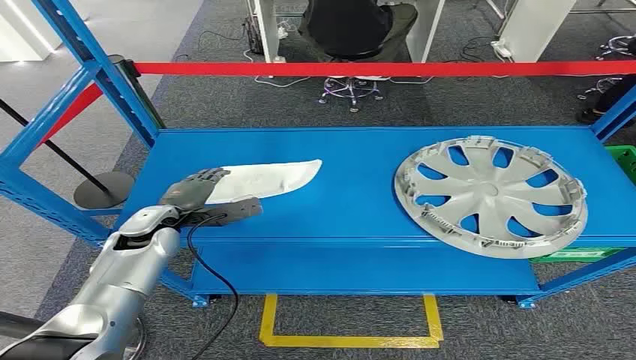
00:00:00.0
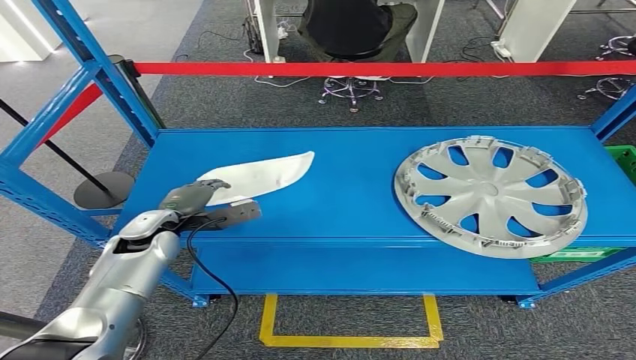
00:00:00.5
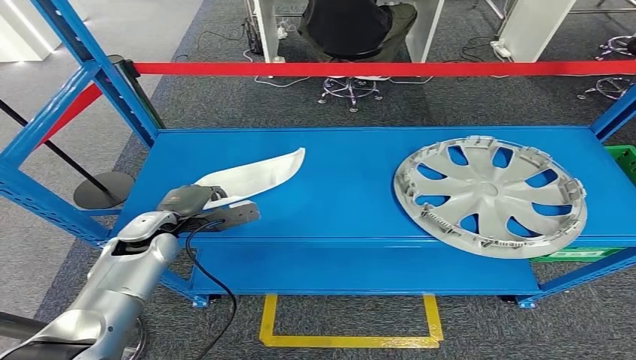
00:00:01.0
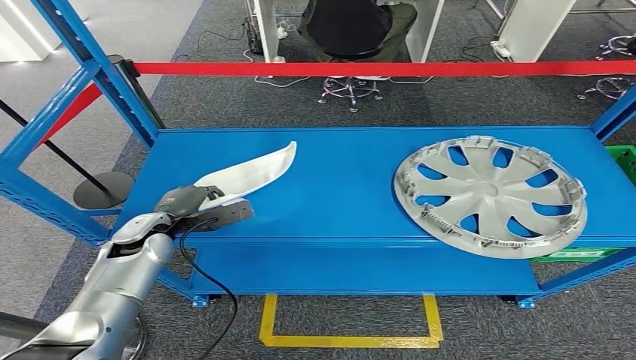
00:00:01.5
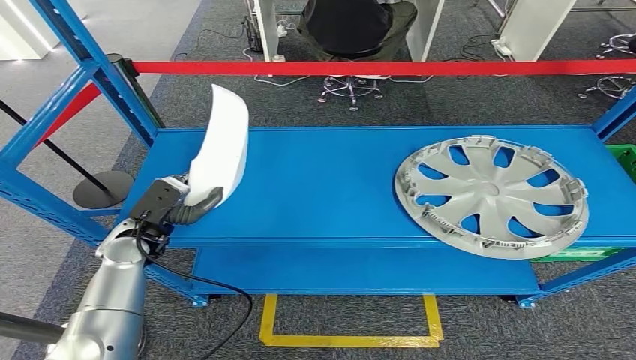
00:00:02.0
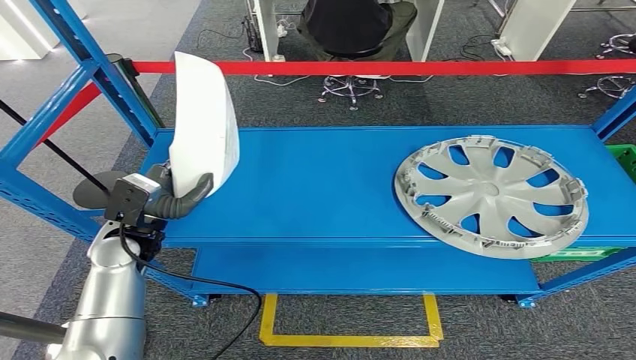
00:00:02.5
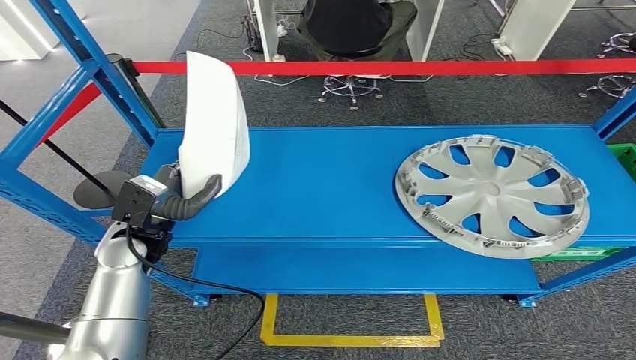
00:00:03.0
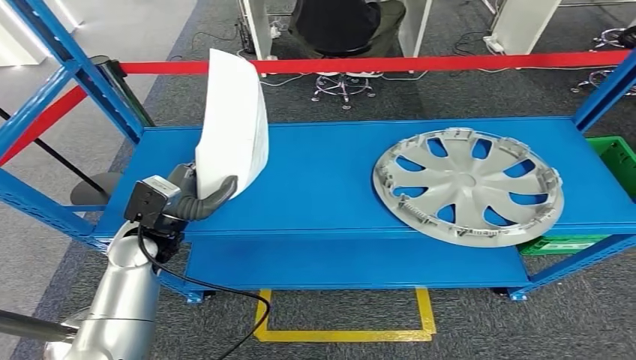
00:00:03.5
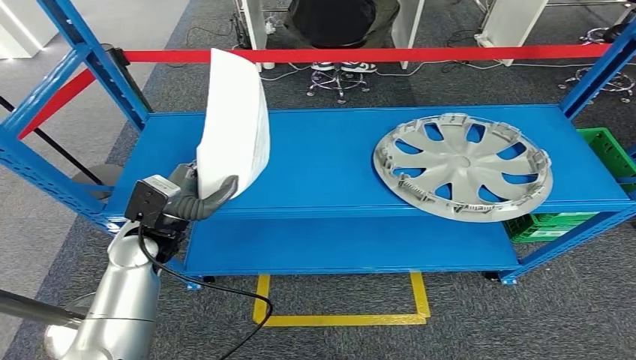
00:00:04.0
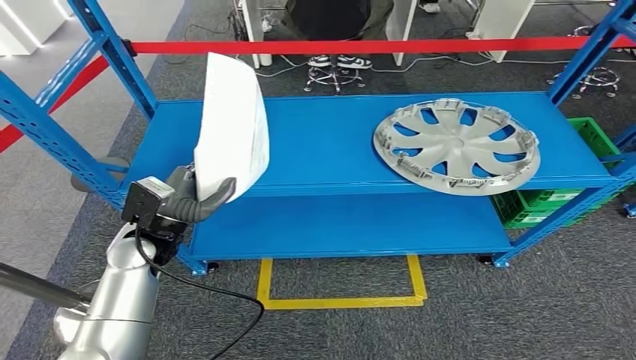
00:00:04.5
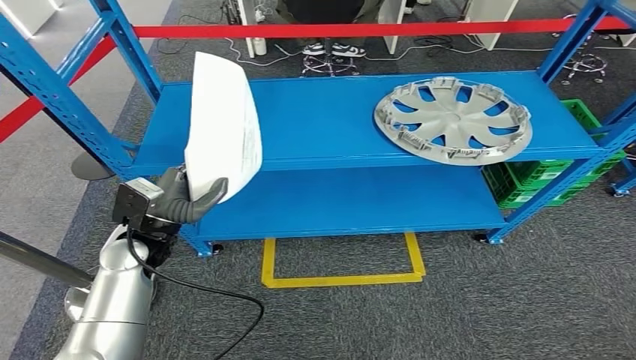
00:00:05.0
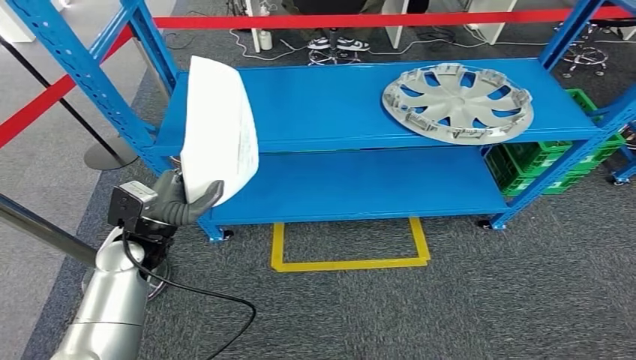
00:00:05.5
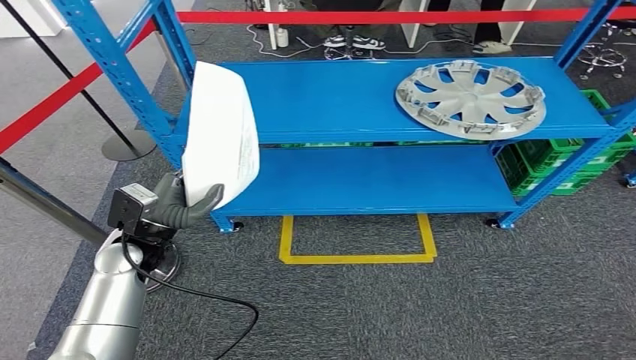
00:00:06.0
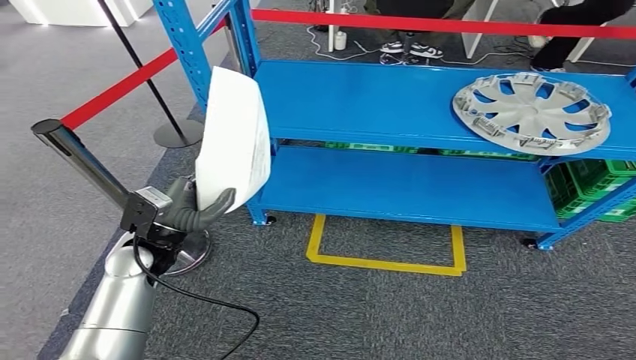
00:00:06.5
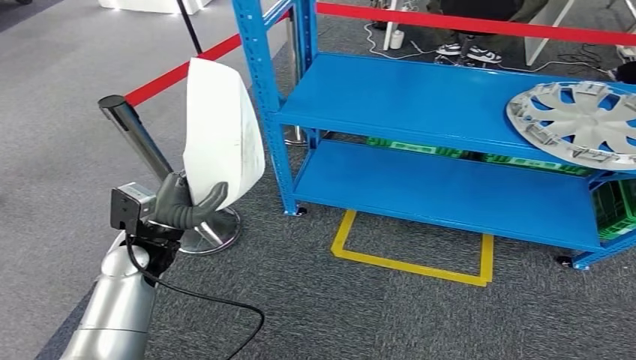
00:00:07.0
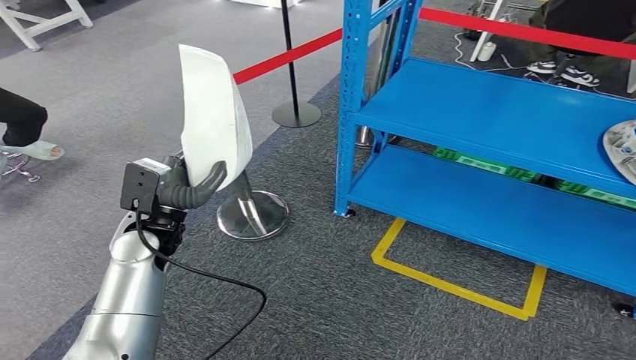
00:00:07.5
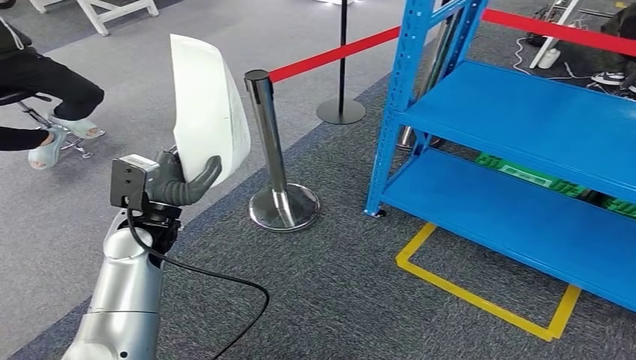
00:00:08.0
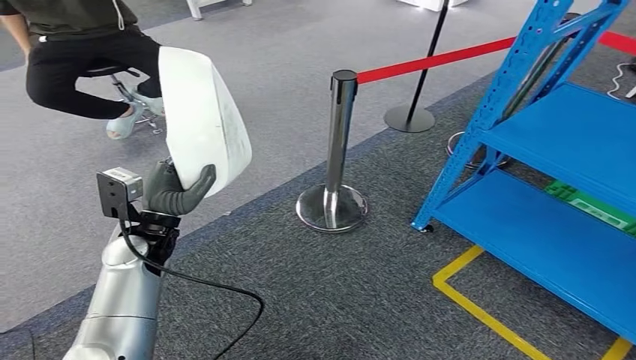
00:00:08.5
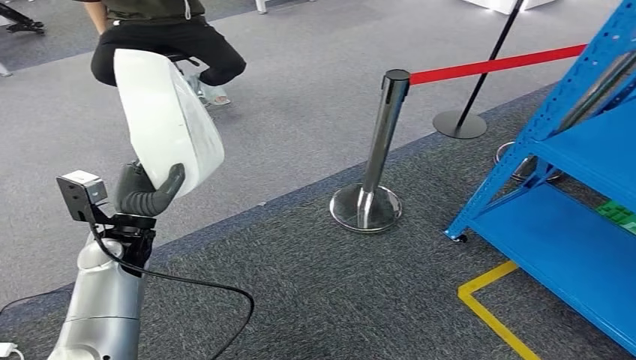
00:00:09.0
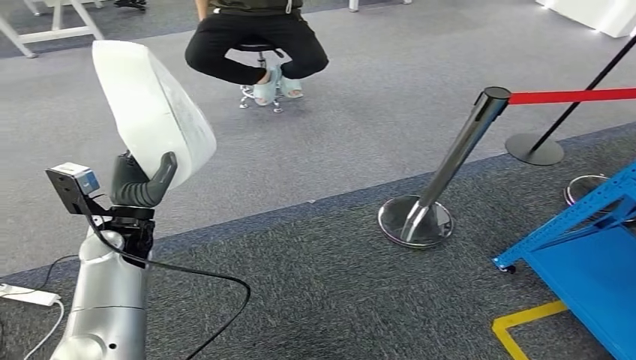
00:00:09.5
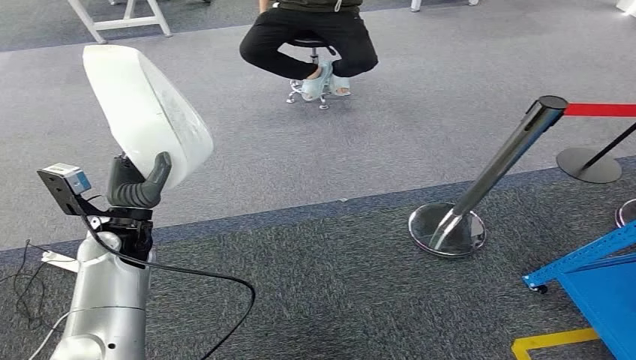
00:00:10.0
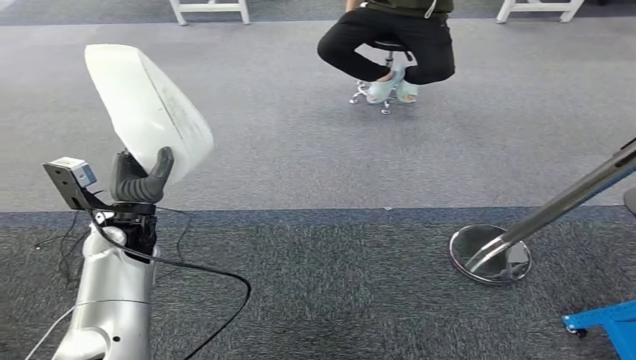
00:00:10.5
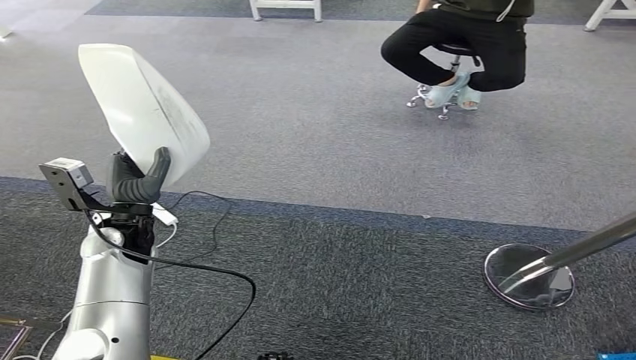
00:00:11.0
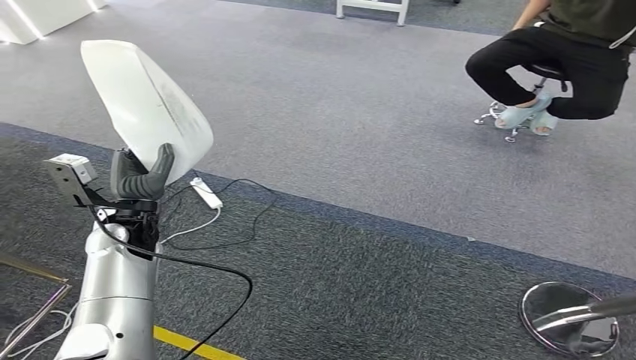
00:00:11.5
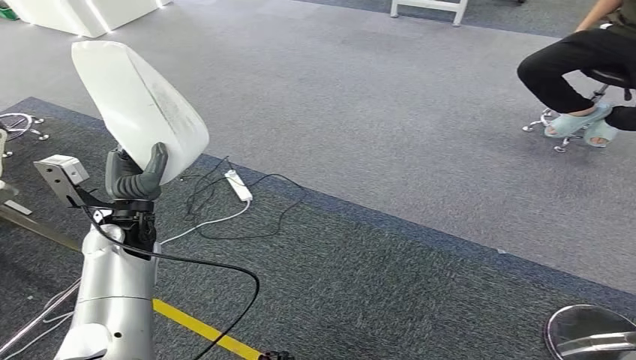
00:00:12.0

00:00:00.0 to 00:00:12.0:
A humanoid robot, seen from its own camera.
Step, 00:00:00.0 to 00:00:04.0: Pick up the small component from the shelf.

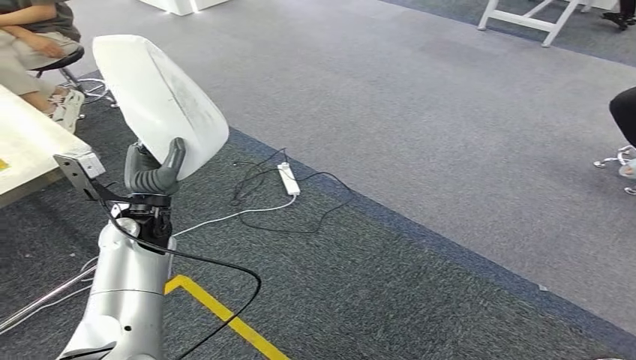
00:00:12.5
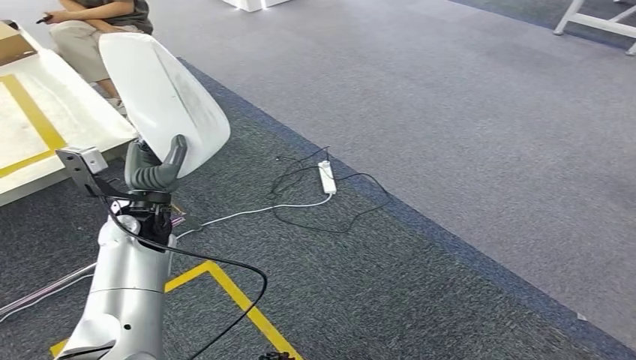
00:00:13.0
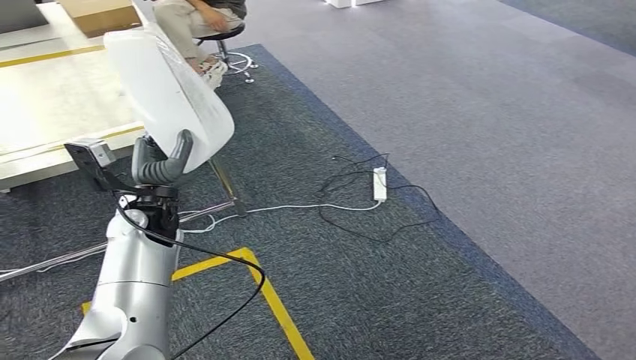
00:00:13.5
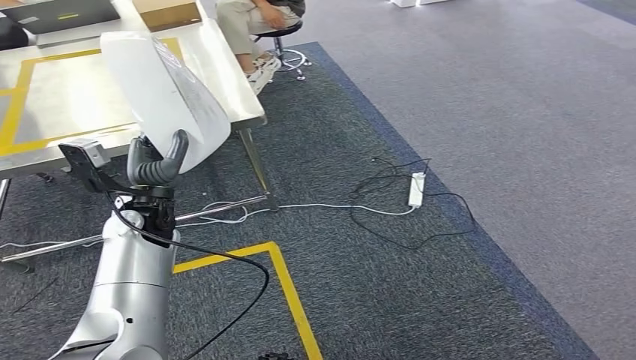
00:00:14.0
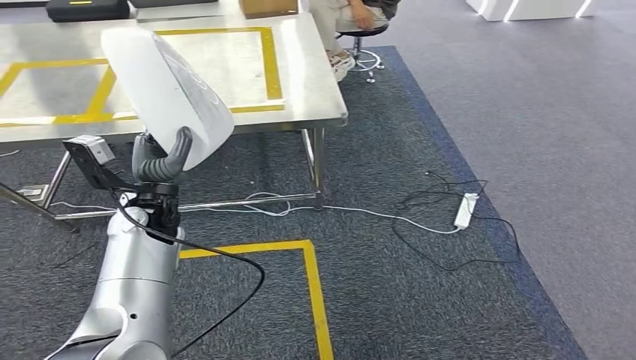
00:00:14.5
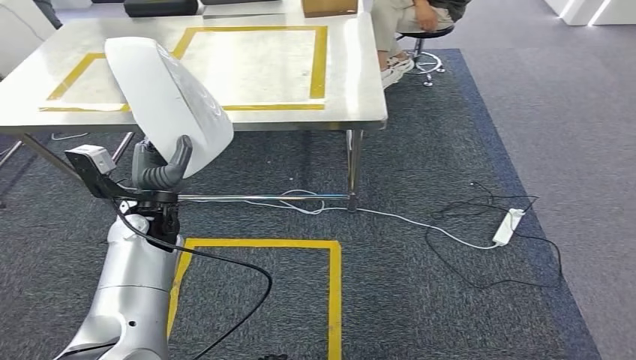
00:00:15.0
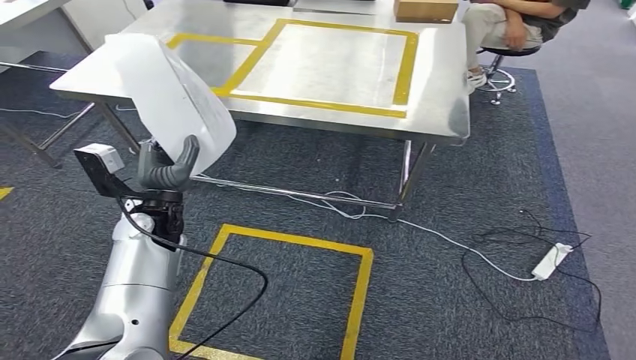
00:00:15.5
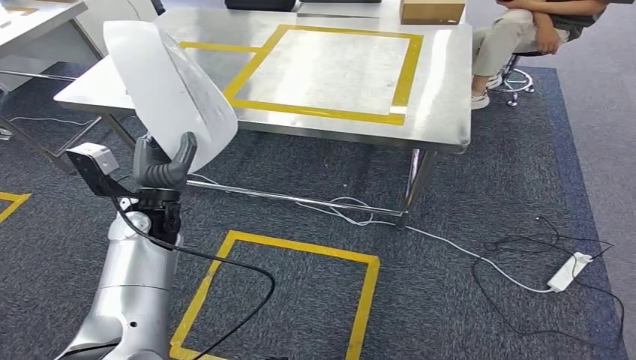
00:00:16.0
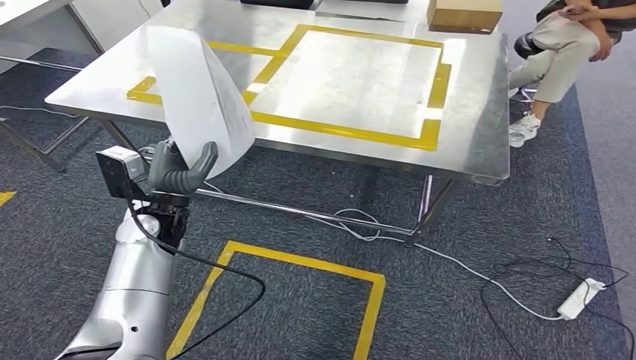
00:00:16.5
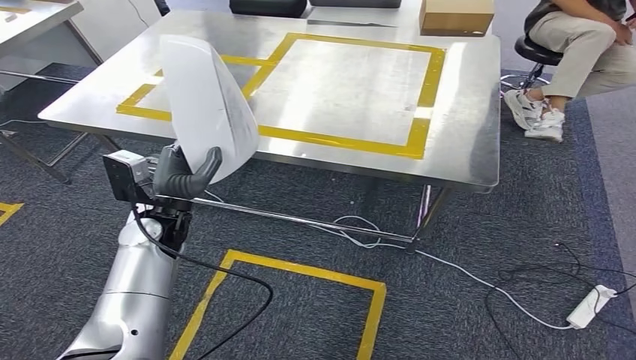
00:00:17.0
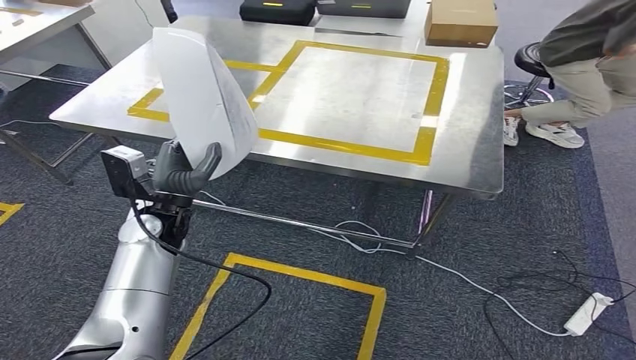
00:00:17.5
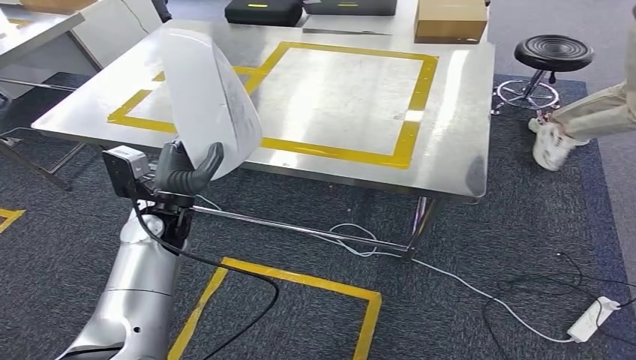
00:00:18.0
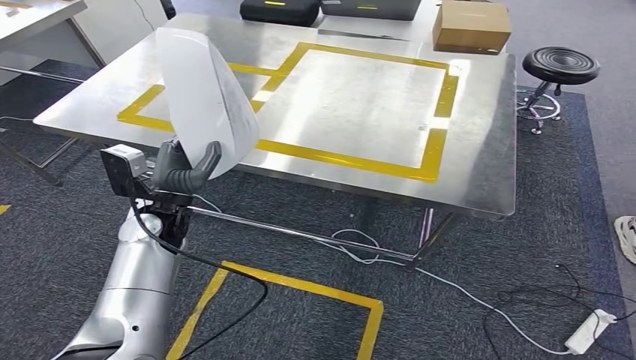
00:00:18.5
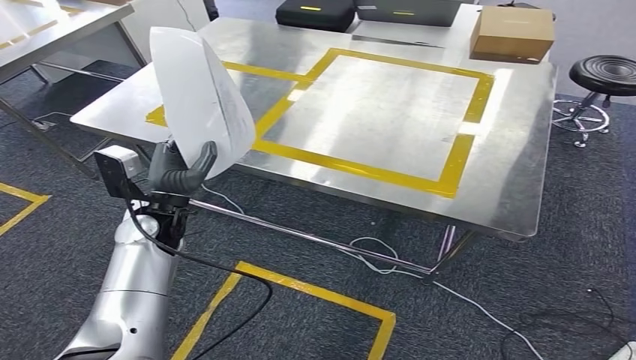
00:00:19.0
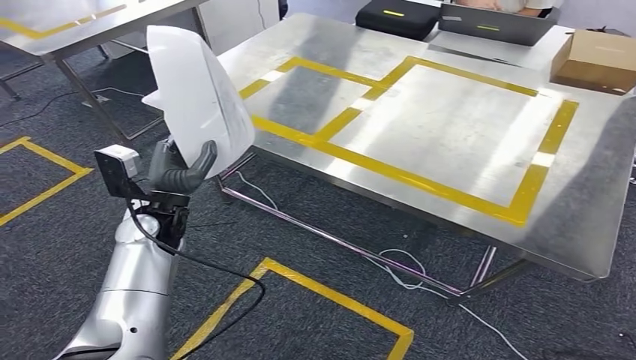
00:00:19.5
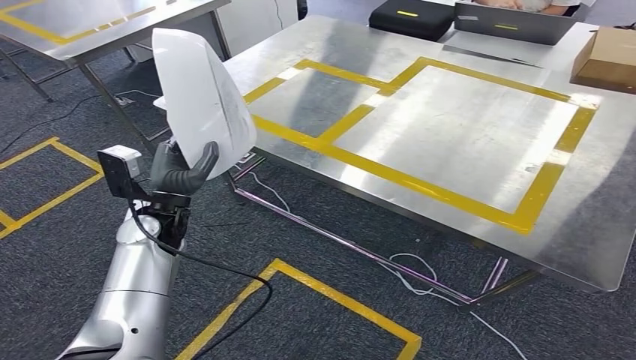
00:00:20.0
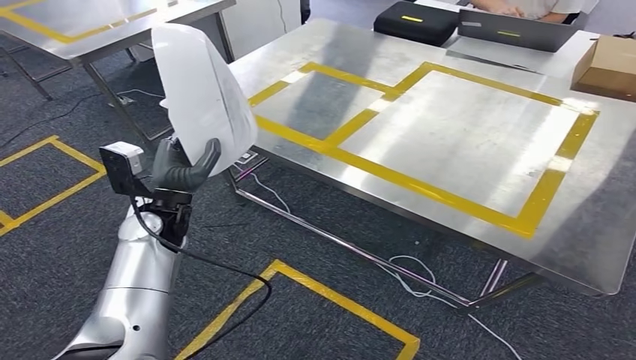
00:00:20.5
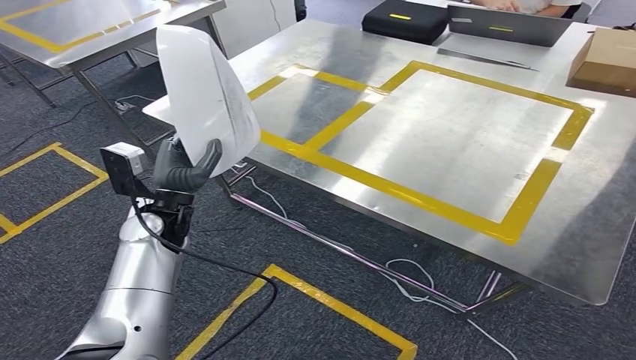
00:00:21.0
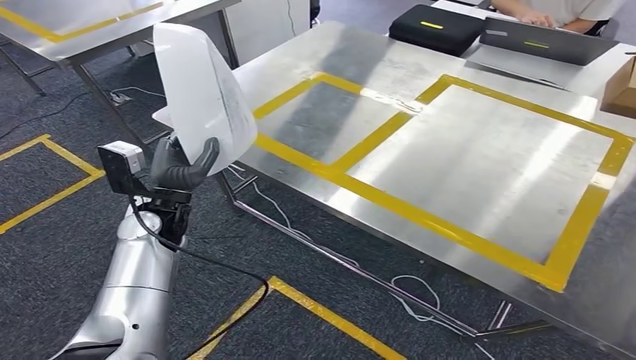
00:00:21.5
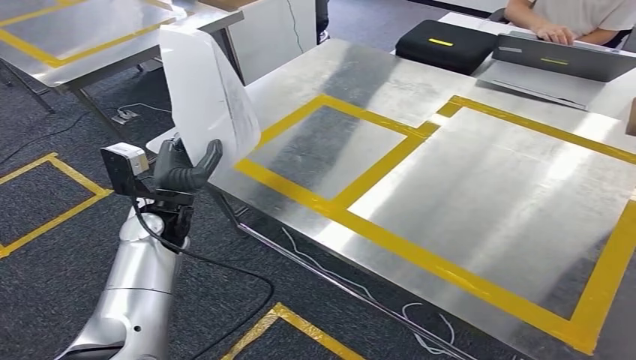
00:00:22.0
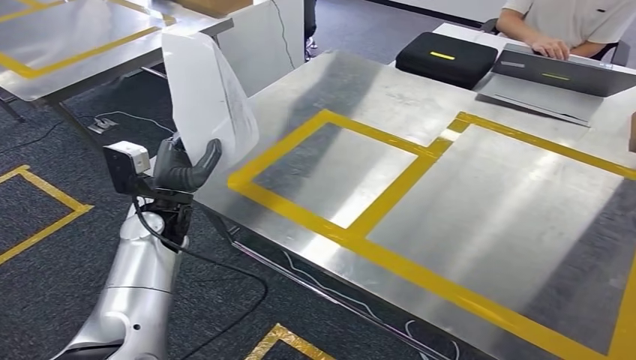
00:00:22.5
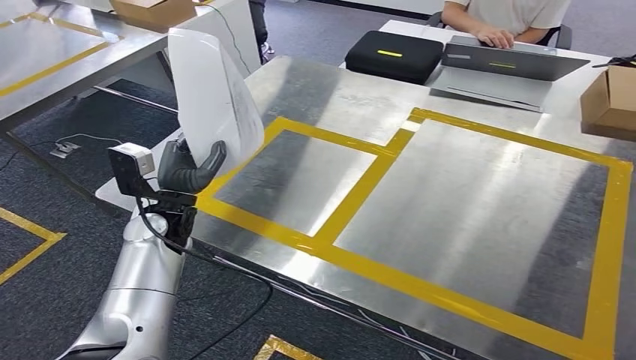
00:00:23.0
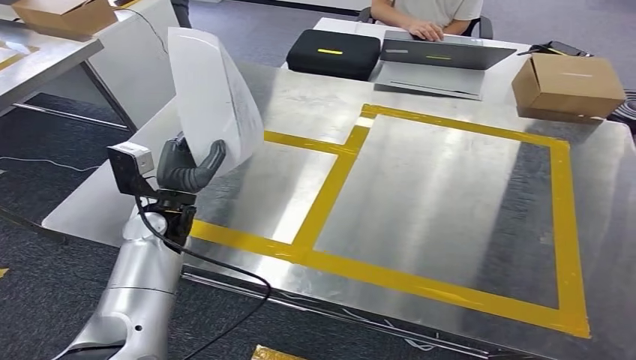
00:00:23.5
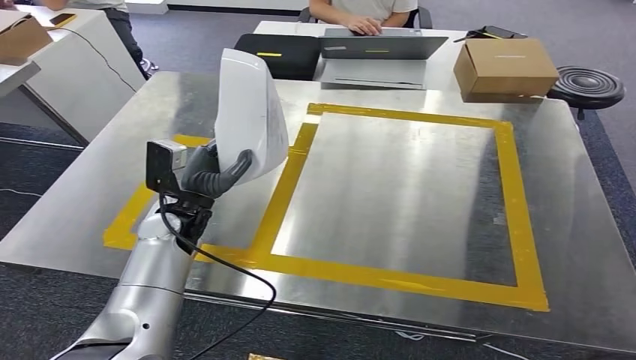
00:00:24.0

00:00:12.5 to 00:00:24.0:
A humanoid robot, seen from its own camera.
Step, 00:00:12.5 to 00:00:17.5: Move the small component to the workbench.
